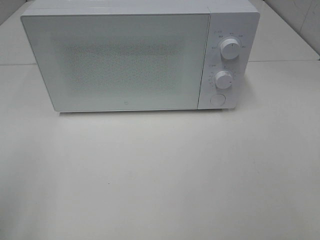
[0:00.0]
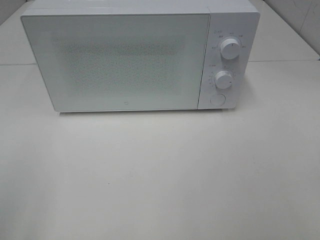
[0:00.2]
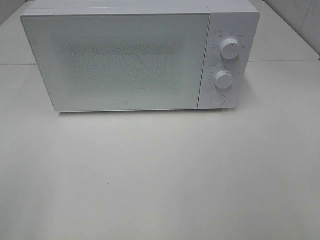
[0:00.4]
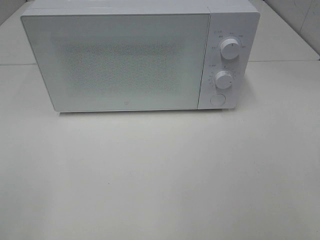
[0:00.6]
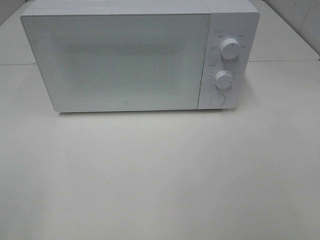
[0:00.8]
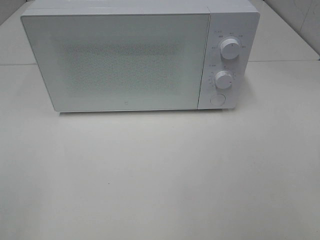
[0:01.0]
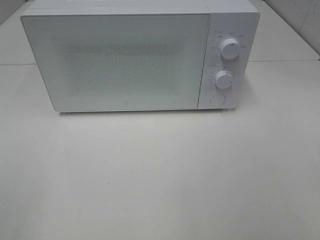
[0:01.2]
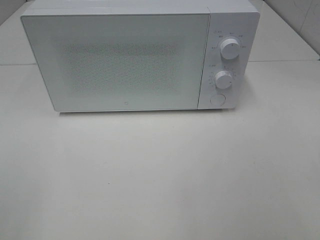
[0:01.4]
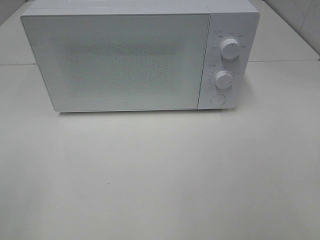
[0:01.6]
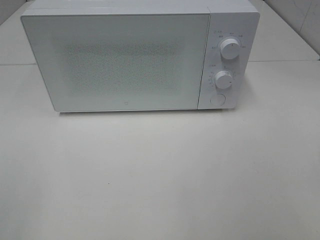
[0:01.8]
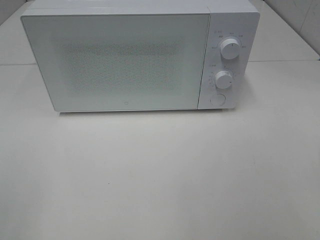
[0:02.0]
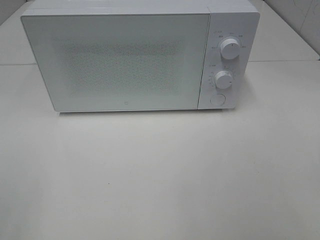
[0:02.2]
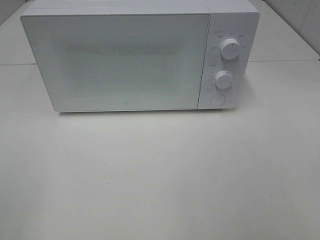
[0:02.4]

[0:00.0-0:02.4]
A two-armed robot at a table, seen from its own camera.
Task of the whole recording: Heat the burger.
0:01.2 to 0:02.4: Both grippers stay about where they are.

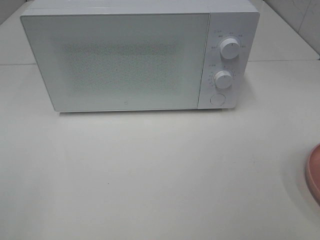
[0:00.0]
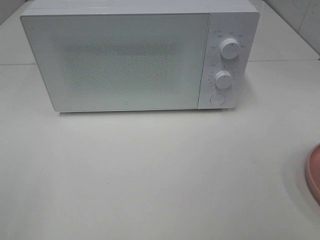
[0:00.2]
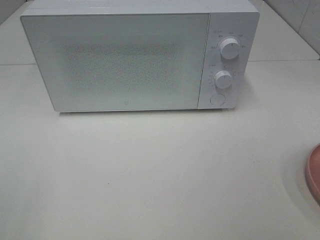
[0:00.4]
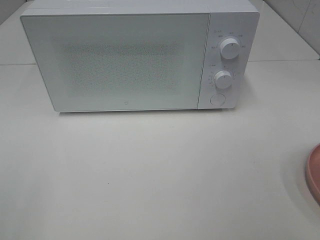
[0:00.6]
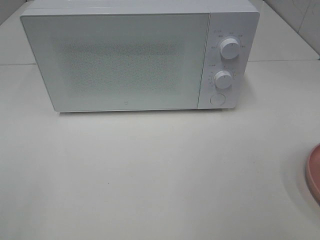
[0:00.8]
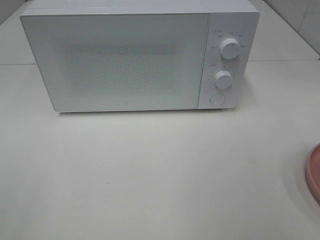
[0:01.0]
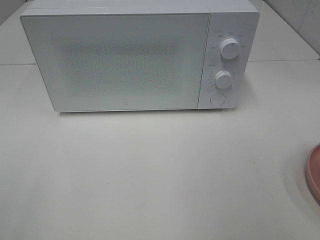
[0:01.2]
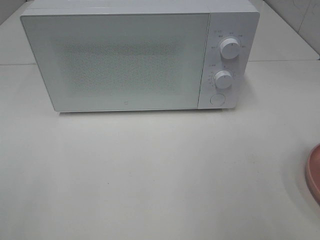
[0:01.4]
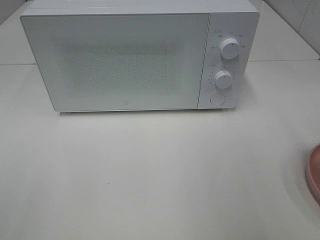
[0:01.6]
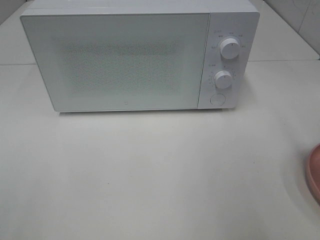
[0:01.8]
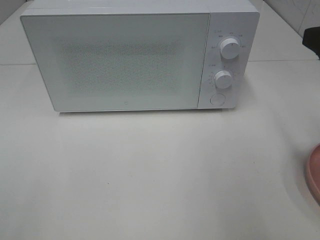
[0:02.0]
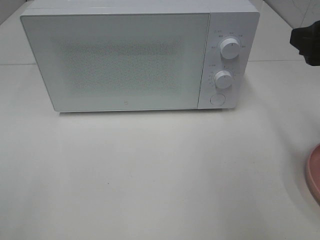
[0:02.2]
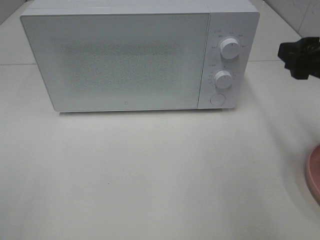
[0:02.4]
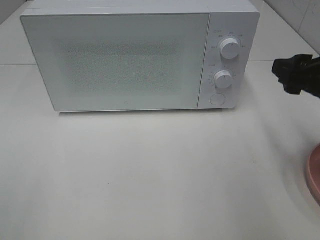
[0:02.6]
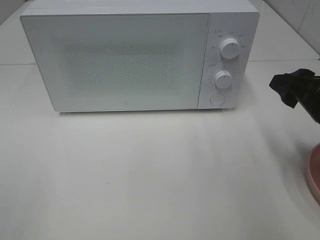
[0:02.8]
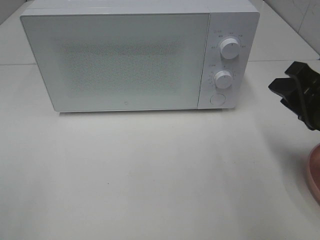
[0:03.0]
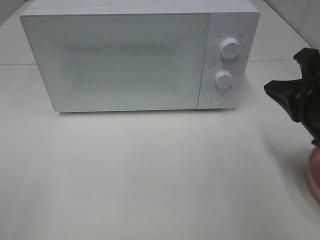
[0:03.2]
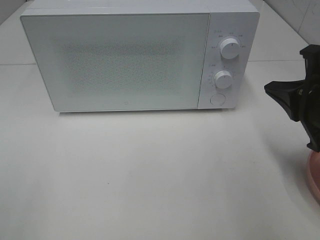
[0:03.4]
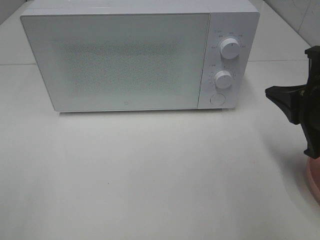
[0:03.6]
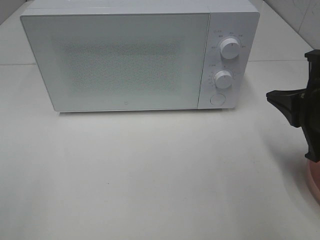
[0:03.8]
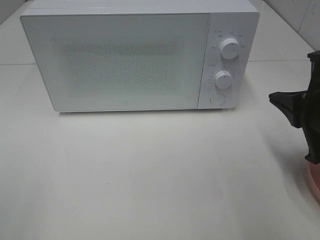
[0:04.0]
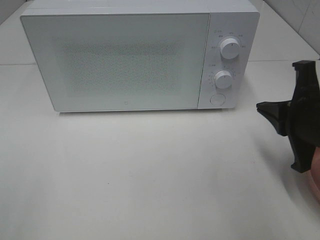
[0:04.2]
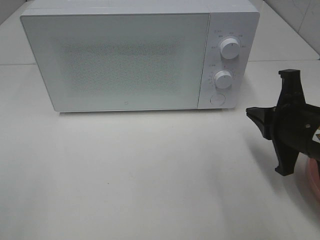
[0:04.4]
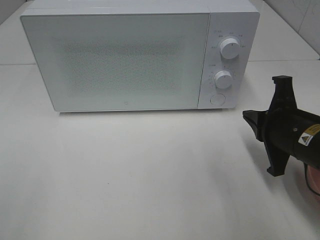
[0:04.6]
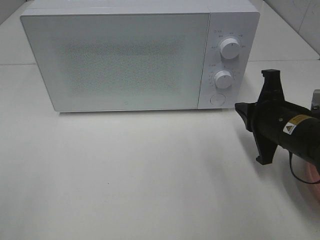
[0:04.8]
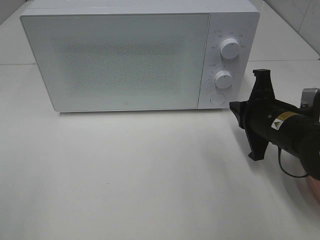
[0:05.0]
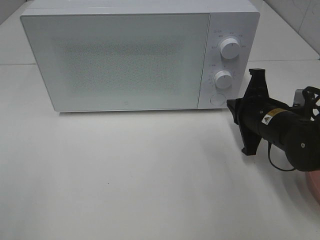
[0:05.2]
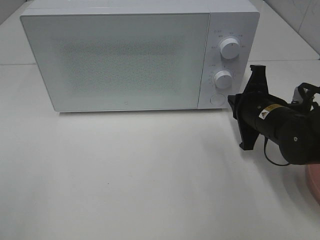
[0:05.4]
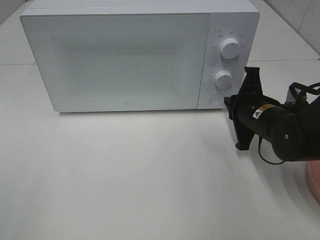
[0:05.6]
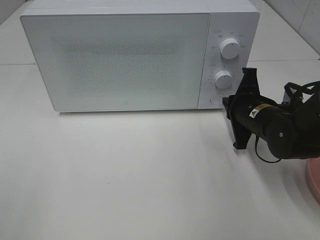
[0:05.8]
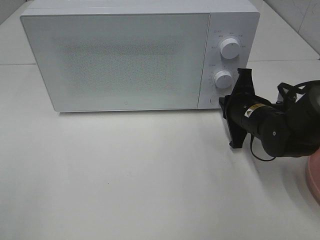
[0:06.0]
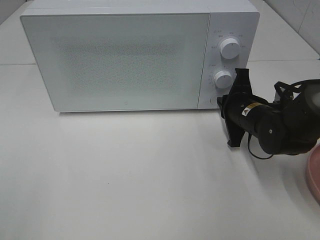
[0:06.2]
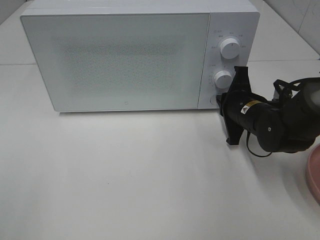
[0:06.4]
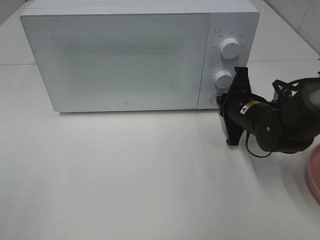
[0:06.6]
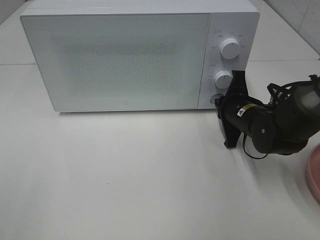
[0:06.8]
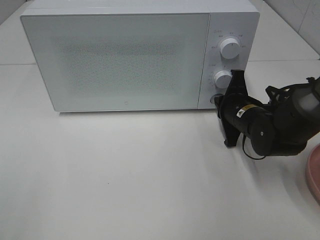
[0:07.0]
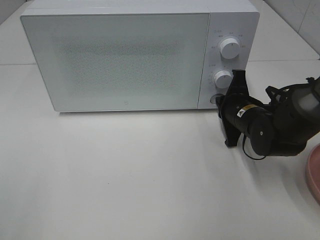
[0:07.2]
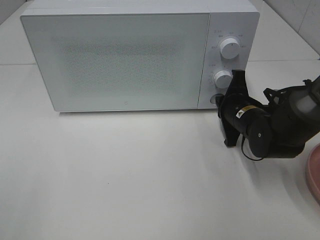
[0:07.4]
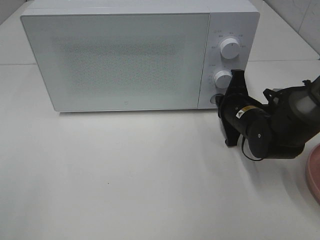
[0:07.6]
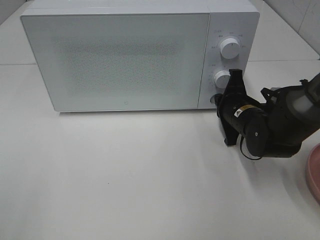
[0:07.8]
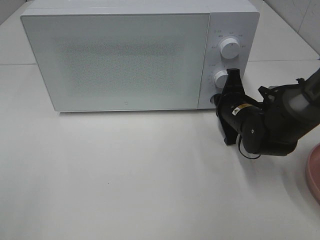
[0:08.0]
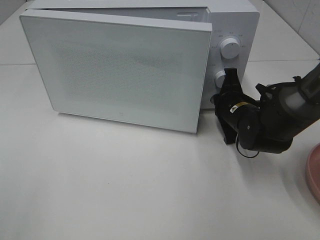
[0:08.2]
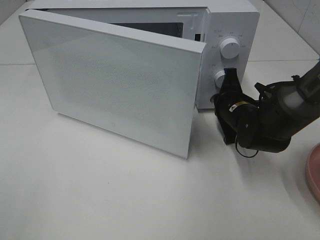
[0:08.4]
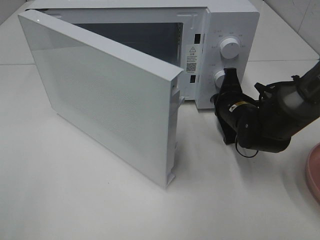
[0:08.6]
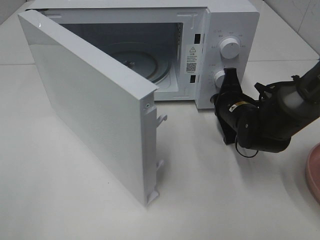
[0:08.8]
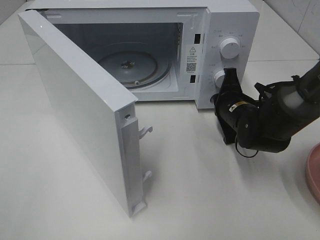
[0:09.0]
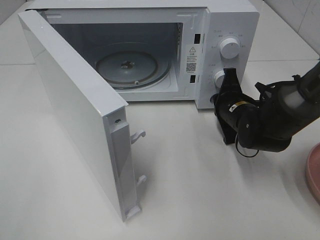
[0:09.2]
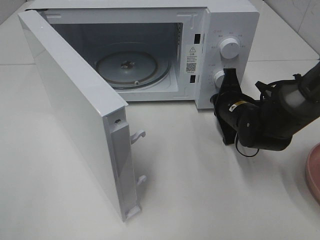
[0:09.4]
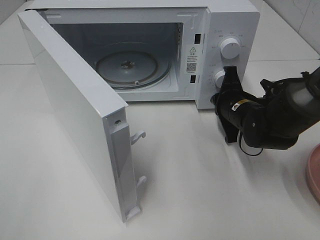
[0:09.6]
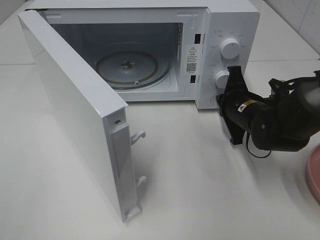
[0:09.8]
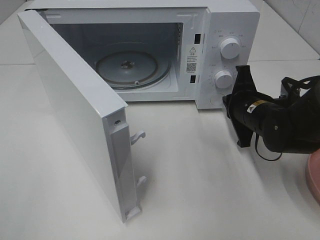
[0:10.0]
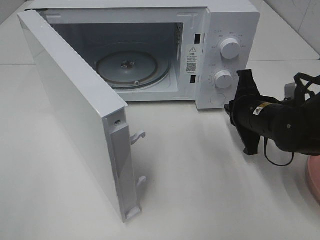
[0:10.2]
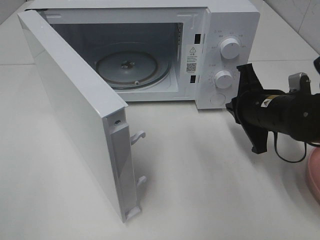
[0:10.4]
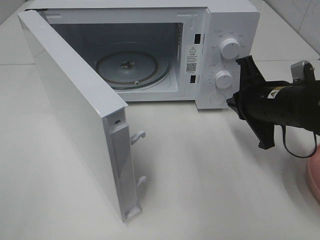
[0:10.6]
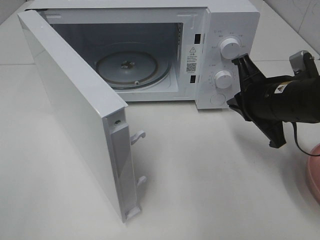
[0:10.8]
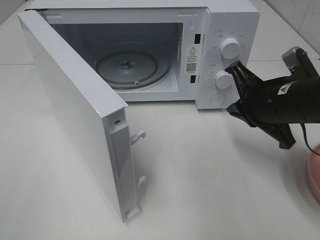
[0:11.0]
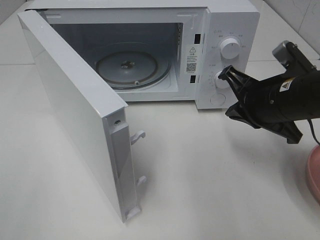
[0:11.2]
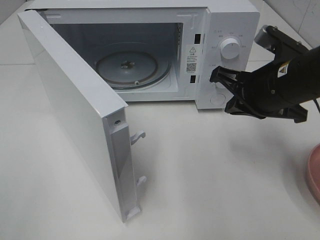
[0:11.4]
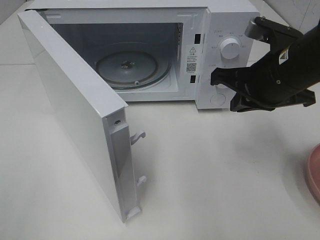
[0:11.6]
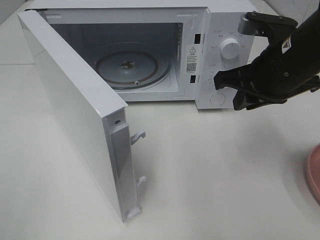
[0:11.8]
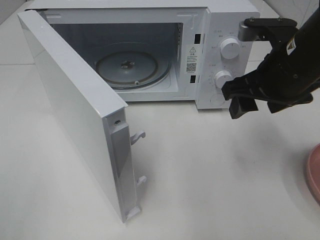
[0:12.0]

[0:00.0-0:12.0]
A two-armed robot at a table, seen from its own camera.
Task of the whole recording: Heat the burger.
Step, 0:00.0 to 0:09.8: Right hand: press the switch.
0:01.6 to 0:03.0: The right gripper moves downward and forward, some 15 cm, and closes.
0:03.0 to 0:04.4: The right gripper moves approximately 5 cm, and closes up.
0:04.4 to 0:06.0: The right gripper heads forward and downward, covering about 15 cm.
0:06.0 to 0:07.6: The grippers make only small movements.
0:09.0 to 0:10.4: The right gripper heads backward and upward, covering roughly 10 cm.
0:10.4 to 0:12.0: The right gripper goes about 10 cm upward, and opens up.

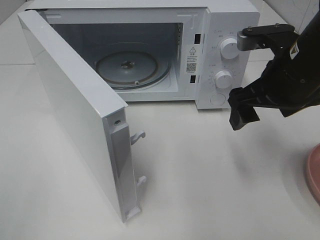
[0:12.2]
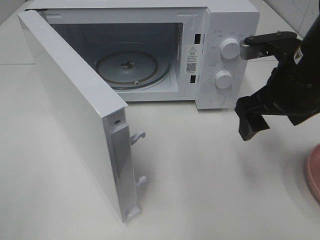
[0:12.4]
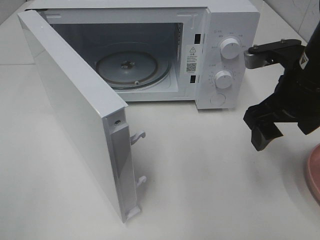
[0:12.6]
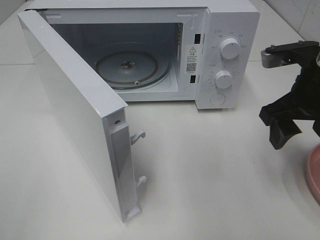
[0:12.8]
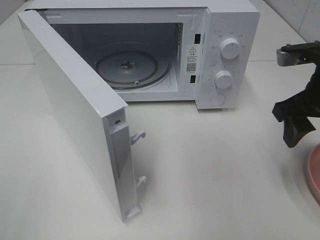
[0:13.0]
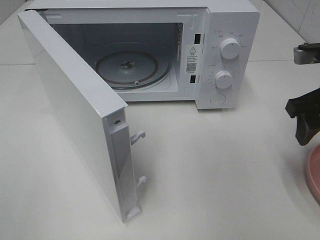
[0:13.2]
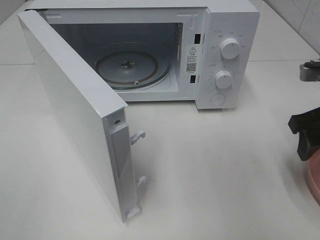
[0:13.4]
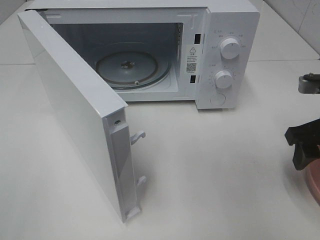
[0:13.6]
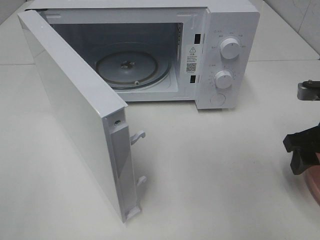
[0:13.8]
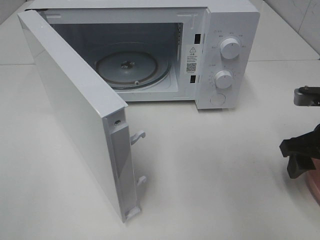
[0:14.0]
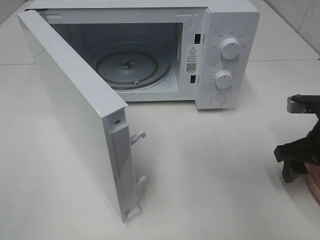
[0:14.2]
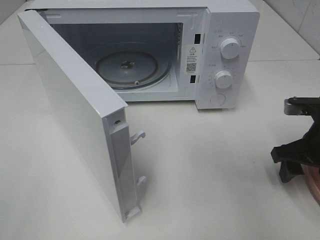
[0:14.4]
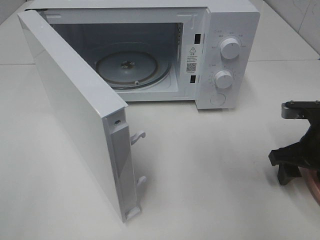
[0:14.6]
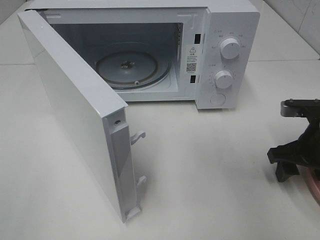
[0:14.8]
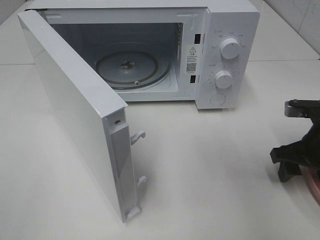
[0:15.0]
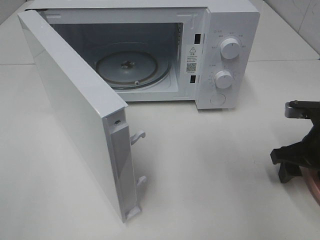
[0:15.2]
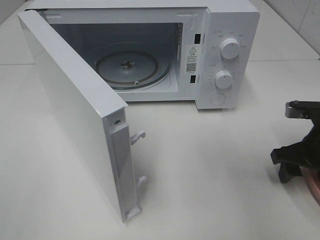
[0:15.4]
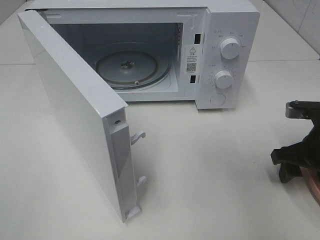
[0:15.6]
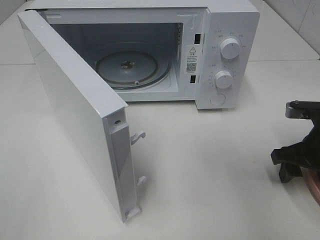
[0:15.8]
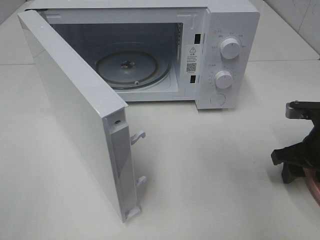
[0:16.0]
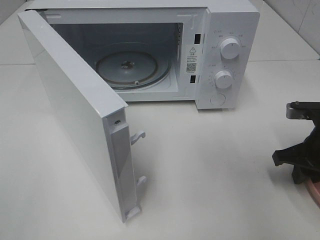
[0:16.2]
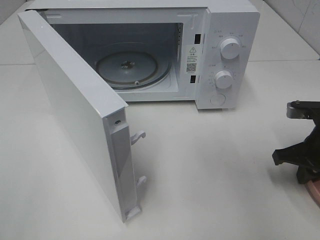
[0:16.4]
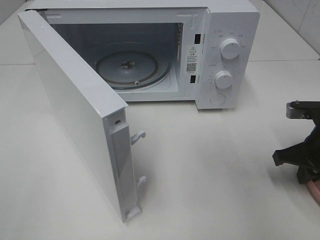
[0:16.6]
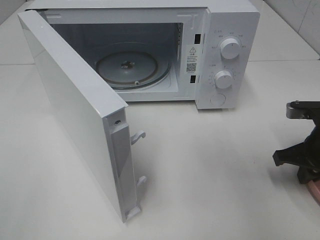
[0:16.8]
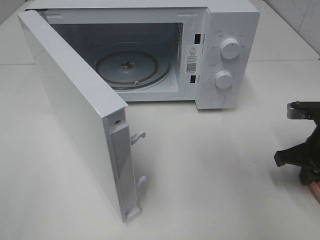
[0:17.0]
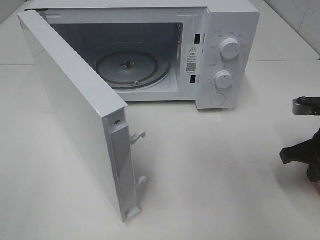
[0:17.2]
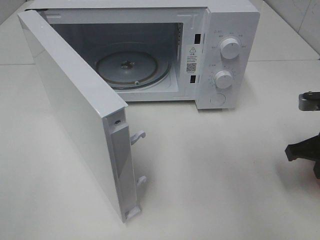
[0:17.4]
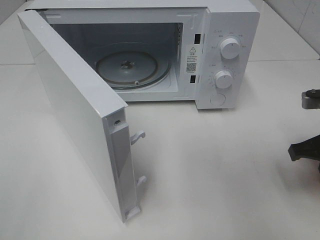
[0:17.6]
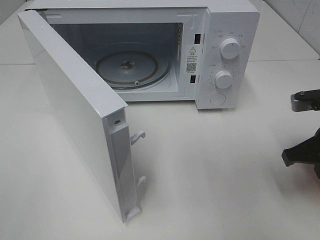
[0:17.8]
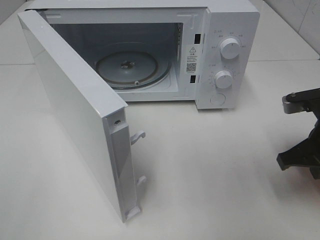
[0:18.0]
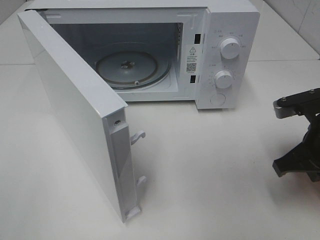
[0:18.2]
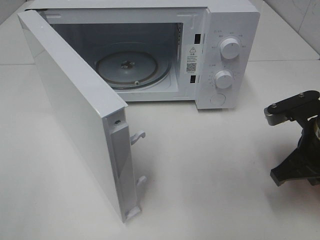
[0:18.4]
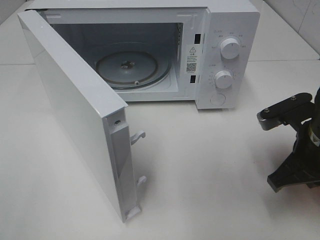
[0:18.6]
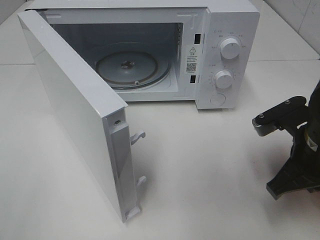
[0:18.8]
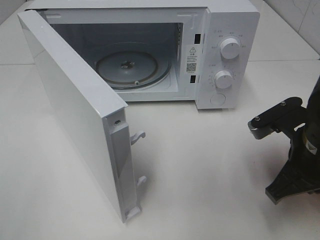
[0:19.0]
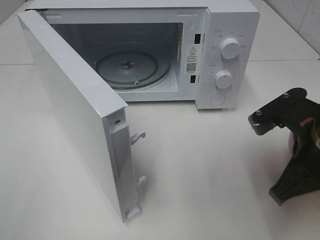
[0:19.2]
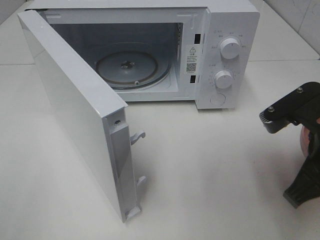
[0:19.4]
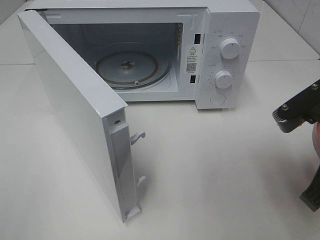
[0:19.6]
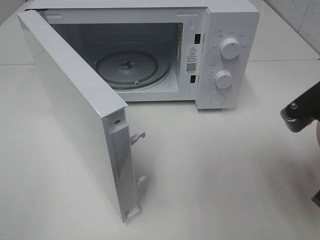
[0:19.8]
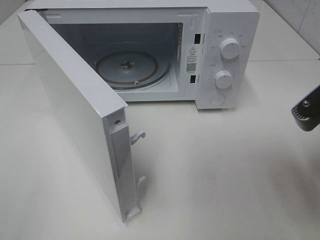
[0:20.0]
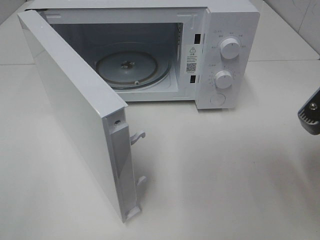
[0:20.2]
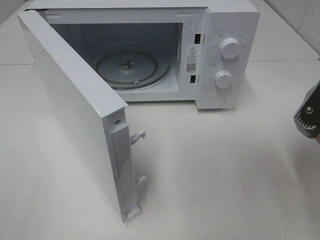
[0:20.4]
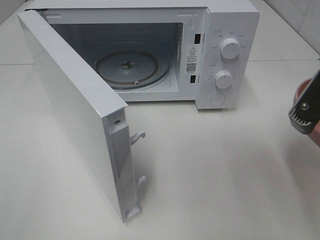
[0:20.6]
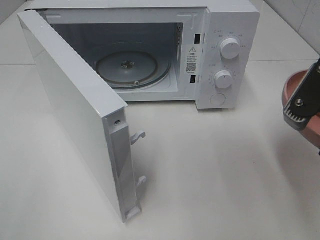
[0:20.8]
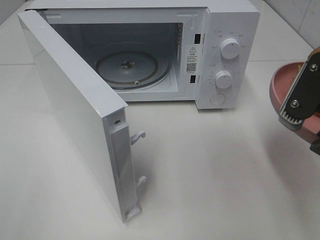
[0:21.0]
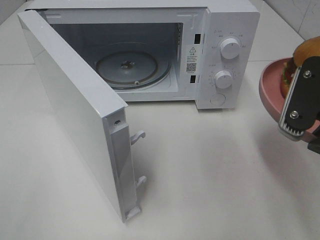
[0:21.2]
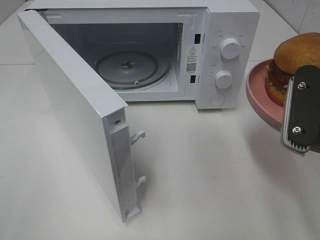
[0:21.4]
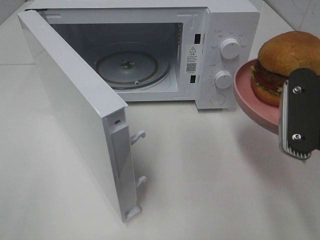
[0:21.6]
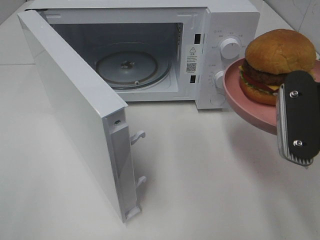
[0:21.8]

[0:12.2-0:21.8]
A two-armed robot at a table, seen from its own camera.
Task of the whole recording: Heat the burger.
Step, 0:12.2 to 0:17.0: Right hand: grab the plate with the hamburger.
0:12.2 to 0:13.8: The right gripper goes approximately 10 cm to the right and downward.
0:13.8 to 0:15.4: The right gripper travels downward by roughly 5 cm.
0:15.4 to 0:17.0: The right gripper closes its fingers.
0:17.0 to 0:18.6: The right gripper goes about 5 cm to the left.
0:18.6 to 0:20.2: The right gripper is displaced upward and backward by approximately 10 cm.
